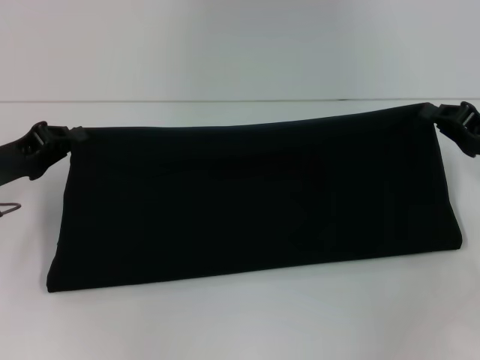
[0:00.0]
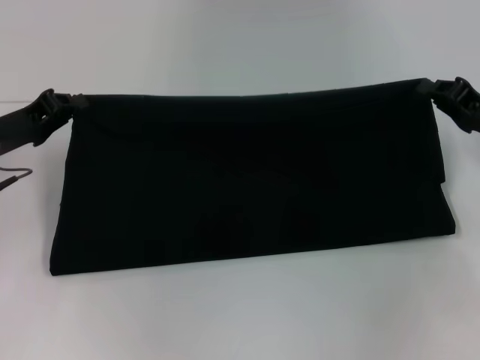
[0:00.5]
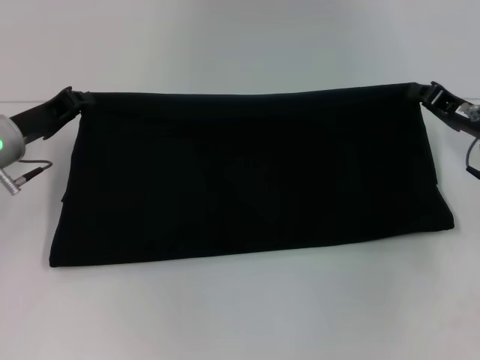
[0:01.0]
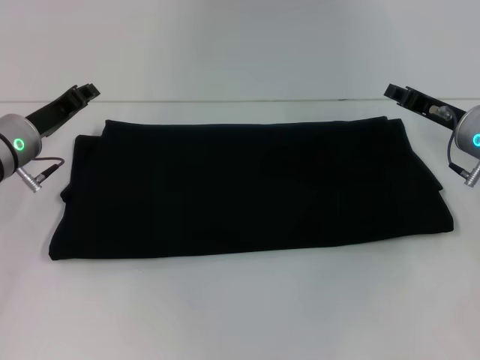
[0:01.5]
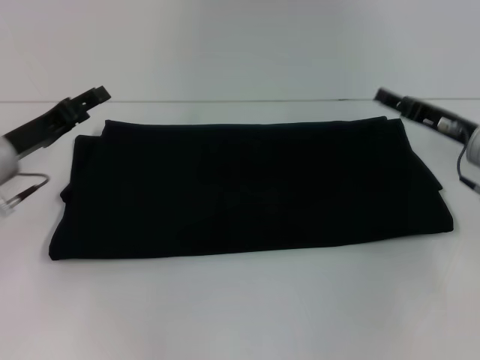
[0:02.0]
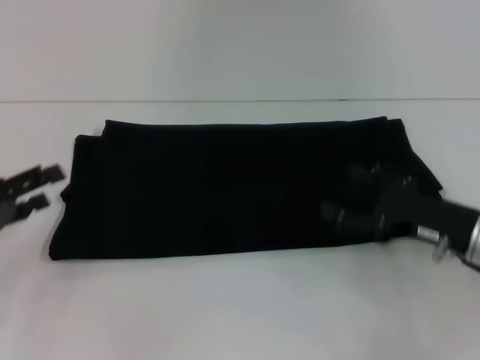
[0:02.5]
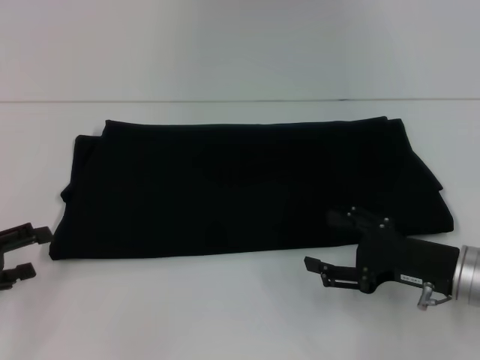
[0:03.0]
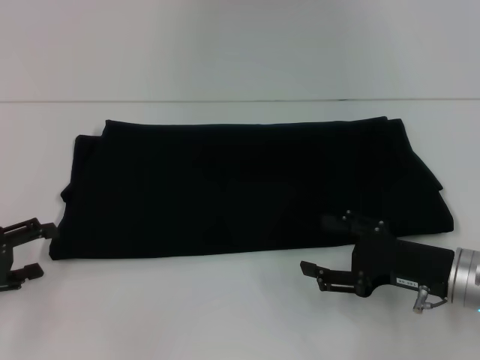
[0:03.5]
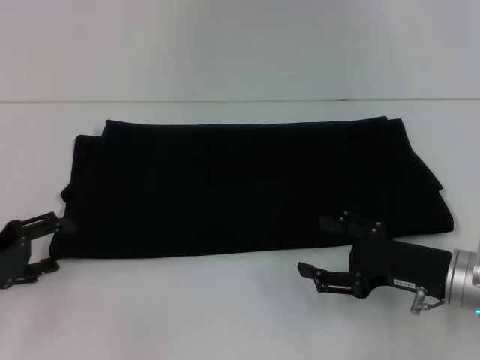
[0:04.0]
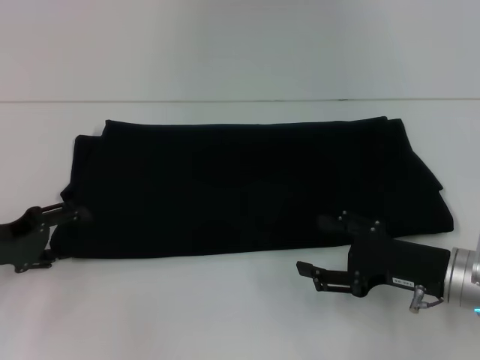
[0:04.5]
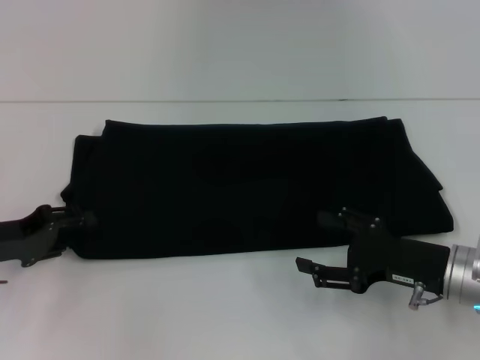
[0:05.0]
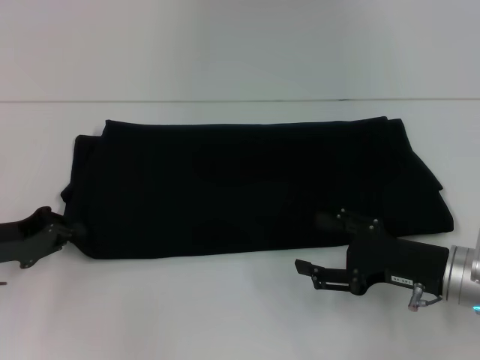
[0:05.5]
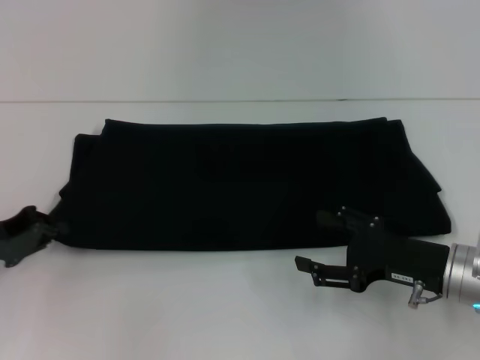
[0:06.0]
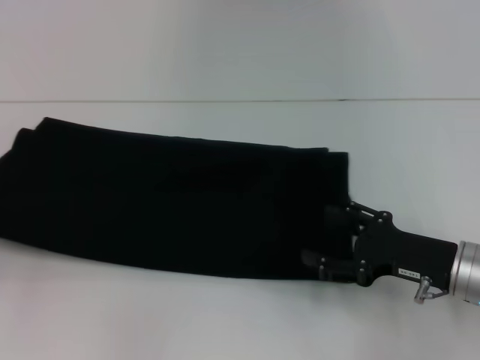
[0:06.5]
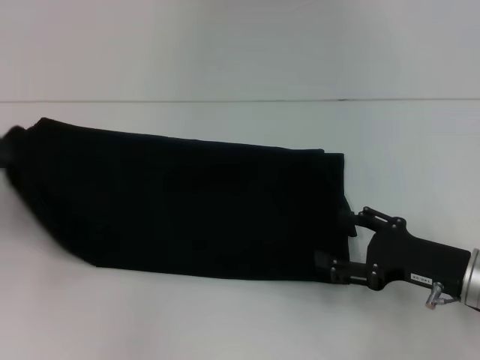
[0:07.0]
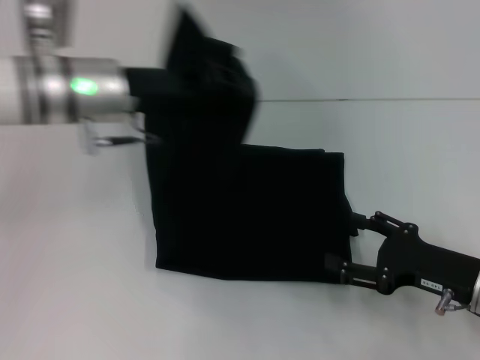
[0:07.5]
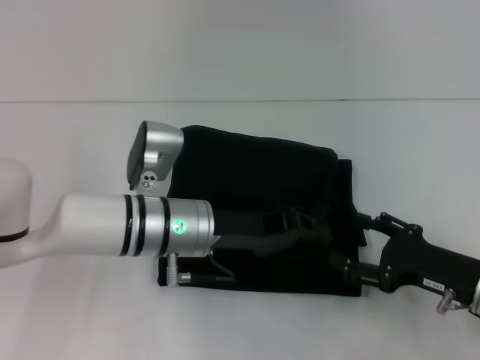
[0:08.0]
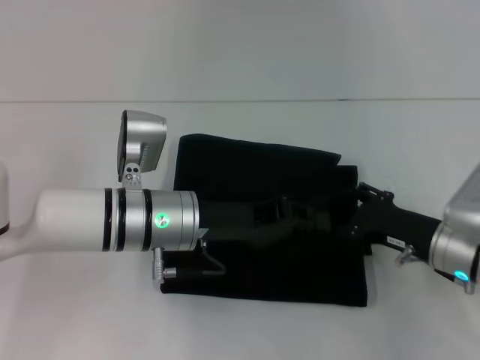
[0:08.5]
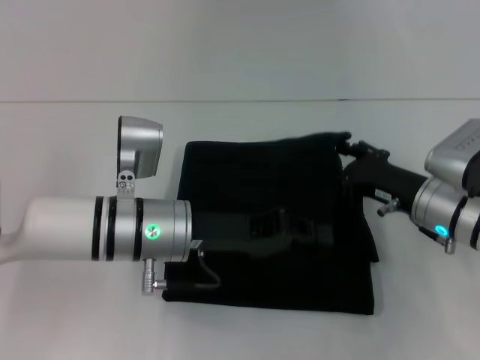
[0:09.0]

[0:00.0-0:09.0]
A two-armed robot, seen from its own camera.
0:00.0 to 0:02.0: The left gripper opens up; the right gripper changes place by approximately 5 cm, and opens up.
0:02.0 to 0:04.5: The right gripper heads backward, covering approximately 10 cm, while the left gripper heads backward, covering about 5 cm.
0:04.5 to 0:07.0: The left gripper goes some 10 cm upward and to the left, and closes.
0:07.0 to 0:09.0: The left gripper is displaced to the right by roughly 30 cm. Meanwhile the right gripper travels forward by about 5 cm.

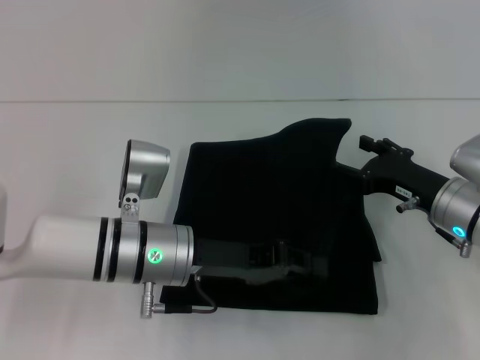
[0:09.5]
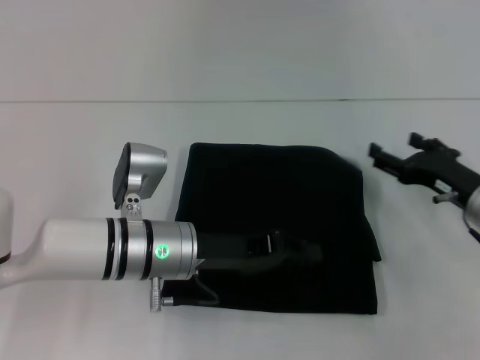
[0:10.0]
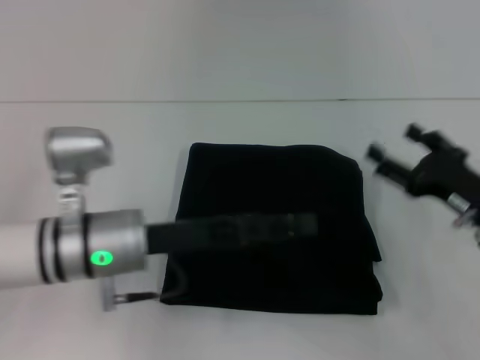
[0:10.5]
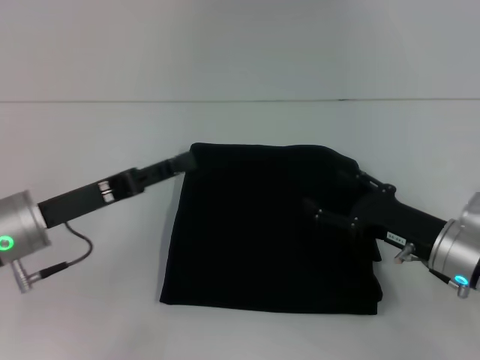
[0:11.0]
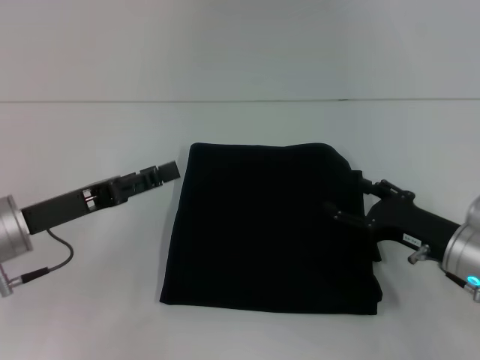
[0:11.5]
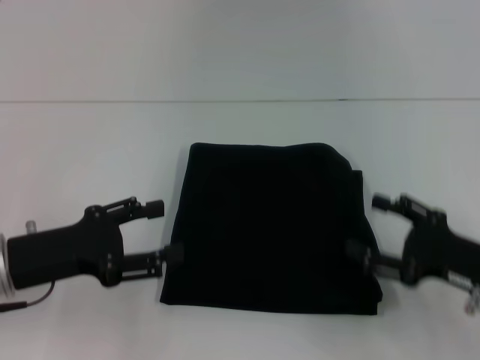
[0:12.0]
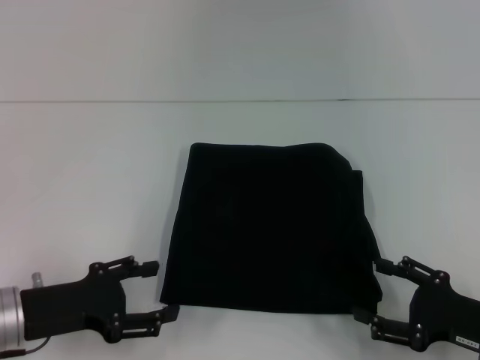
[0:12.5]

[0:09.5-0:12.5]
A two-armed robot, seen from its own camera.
0:09.5 to 0:11.0: The left gripper heads to the left, covering some 15 cm, and opens.
0:11.0 to 0:12.5: The left gripper travels backward by approximately 5 cm. Meanwhile the right gripper is displaced backward and to the right by about 10 cm.

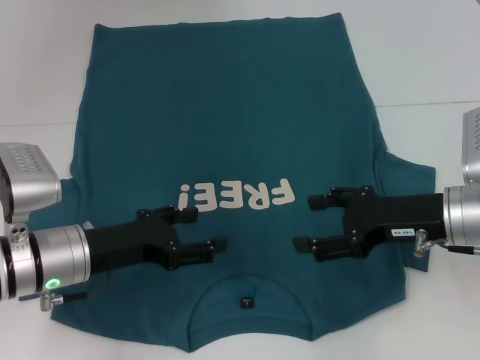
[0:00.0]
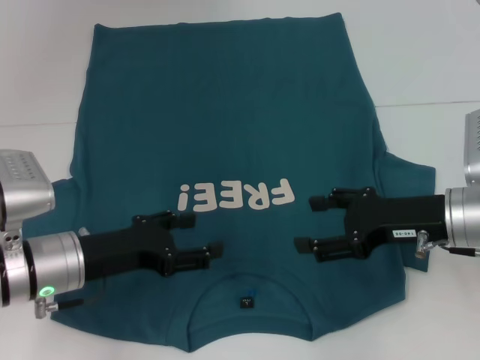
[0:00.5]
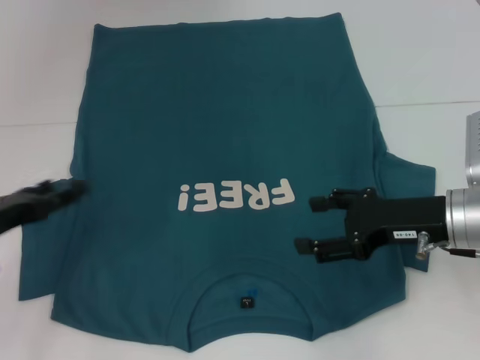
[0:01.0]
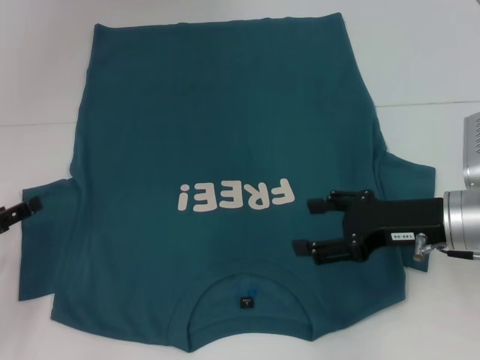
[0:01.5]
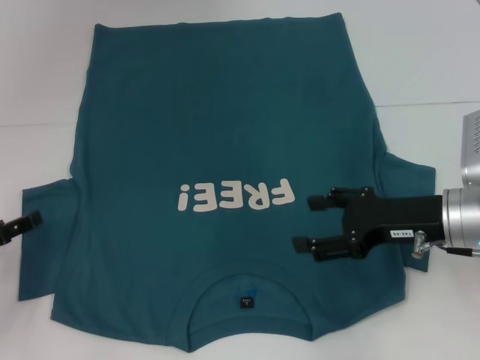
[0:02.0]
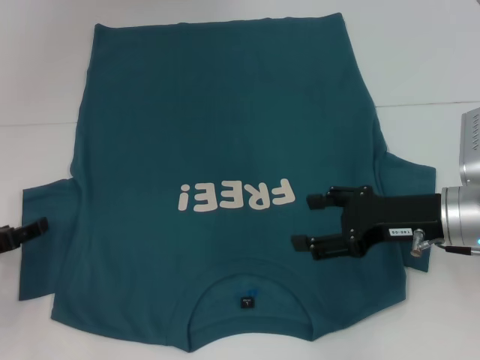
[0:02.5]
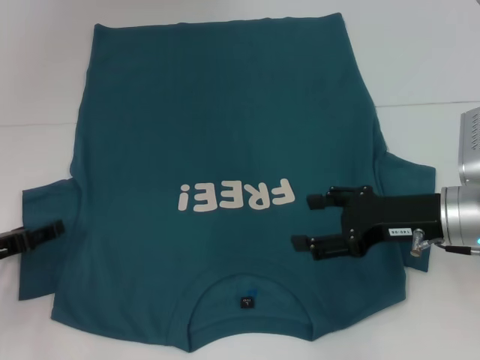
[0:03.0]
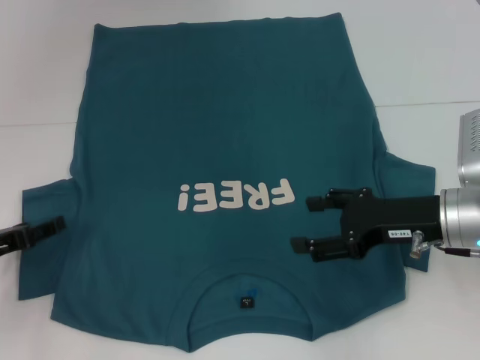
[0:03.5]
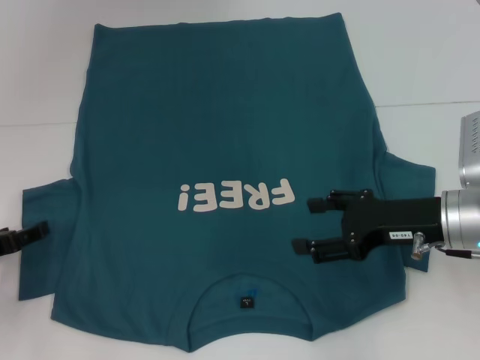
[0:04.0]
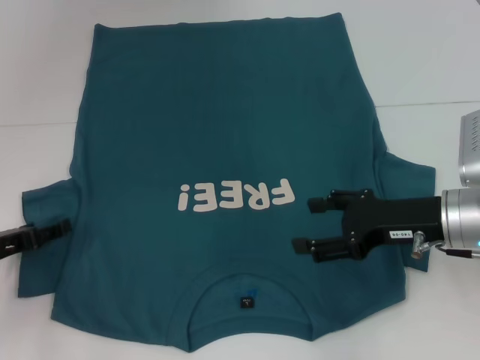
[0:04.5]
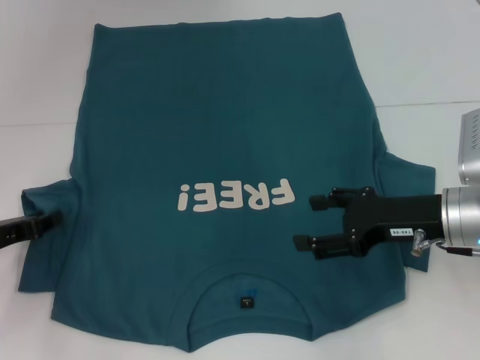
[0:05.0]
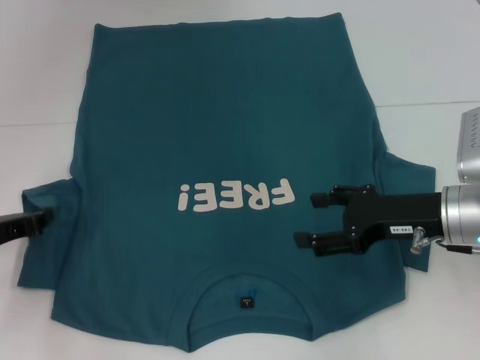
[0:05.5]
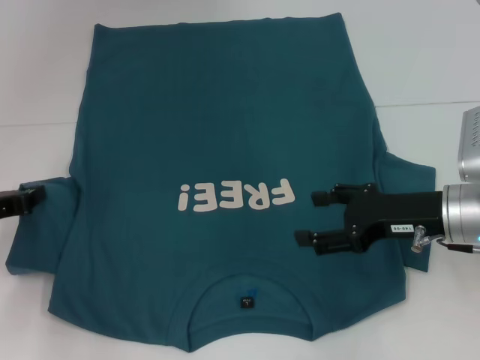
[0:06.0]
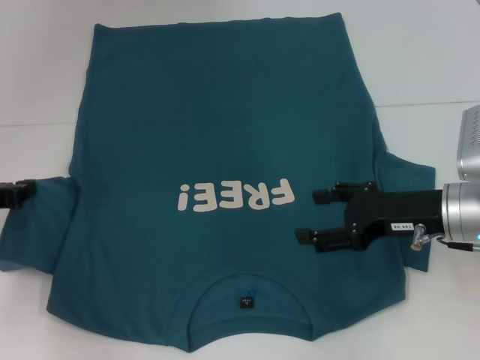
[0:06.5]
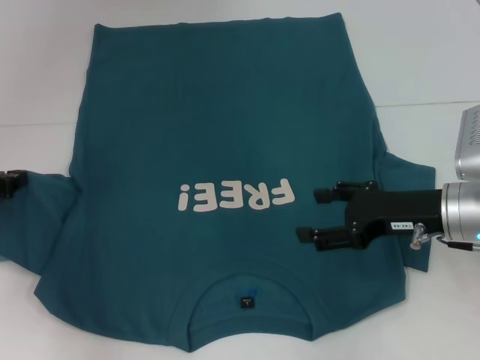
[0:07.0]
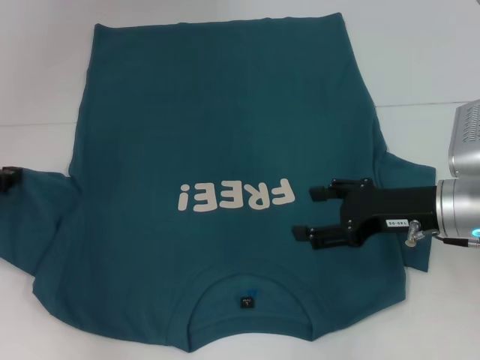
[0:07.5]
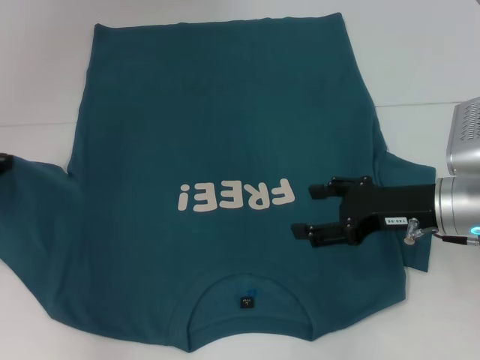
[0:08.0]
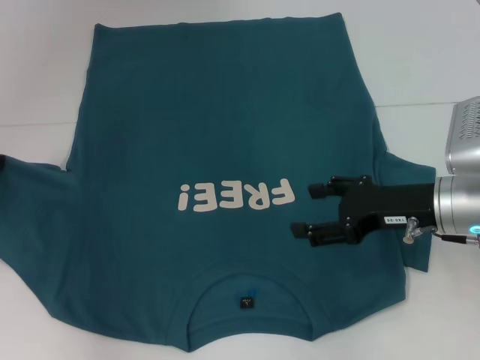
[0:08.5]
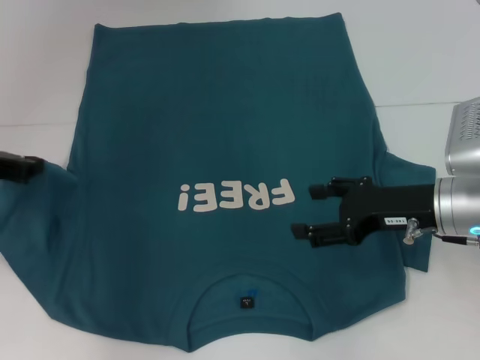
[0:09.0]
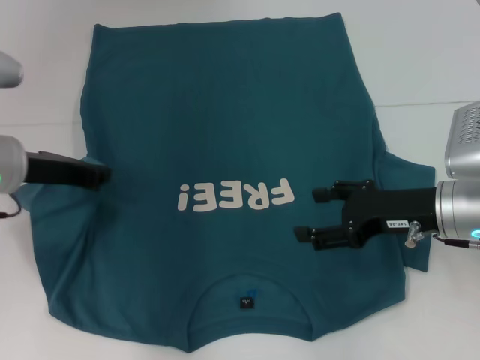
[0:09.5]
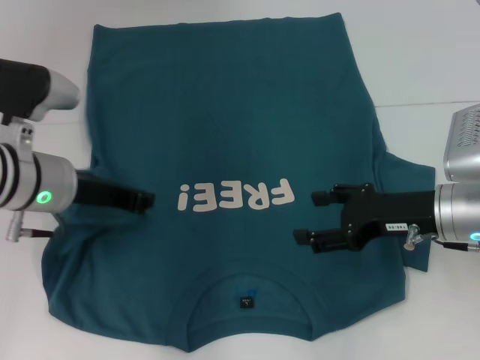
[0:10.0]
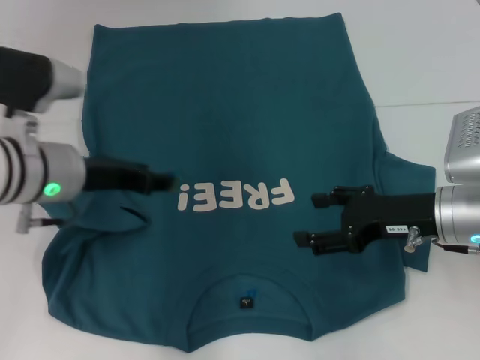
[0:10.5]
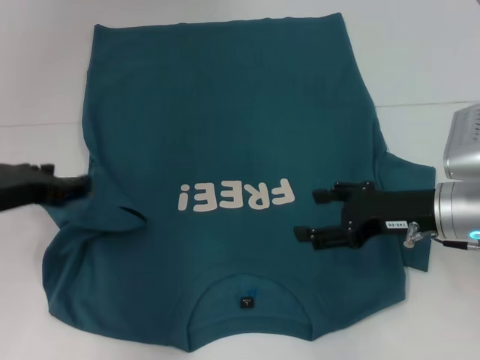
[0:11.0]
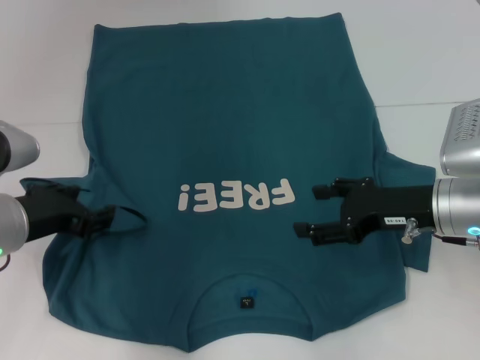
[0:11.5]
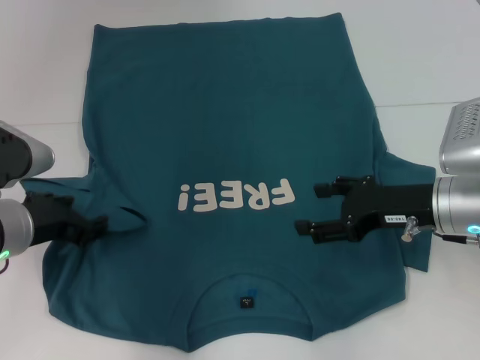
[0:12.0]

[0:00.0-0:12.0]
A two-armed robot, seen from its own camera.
Step, 0:00.0 to 0:10.5: Fold the bottom left sleeve with your left hand.
0:00.0 to 0:02.0: The left gripper heads to the left, covering roughly 15 cm.
0:02.0 to 0:04.0: The grippers make only small movements.
0:04.0 to 0:06.0: The left gripper closes its fingers.
0:06.0 to 0:08.0: The left gripper is displaced upward by about 5 cm.
0:08.0 to 0:10.0: The left gripper heads to the right, covering some 15 cm.
0:10.0 to 0:12.0: The left gripper is displaced backward by roughly 5 cm, and opens its fingers.

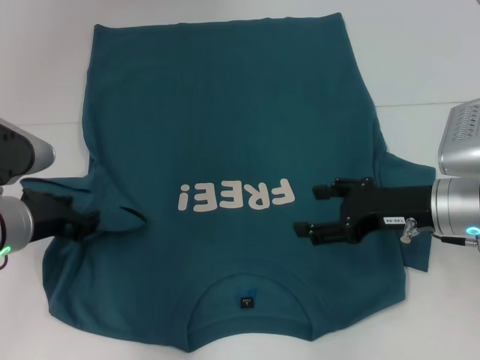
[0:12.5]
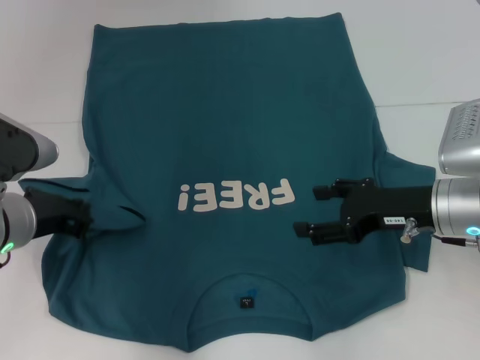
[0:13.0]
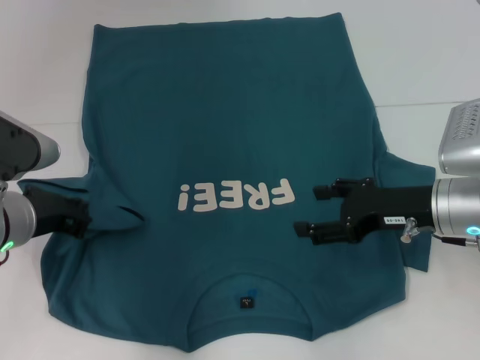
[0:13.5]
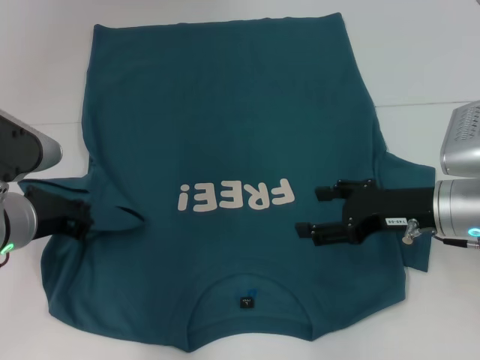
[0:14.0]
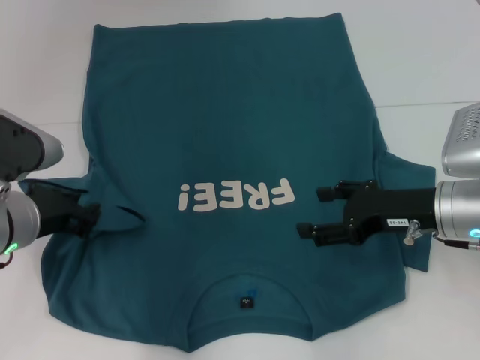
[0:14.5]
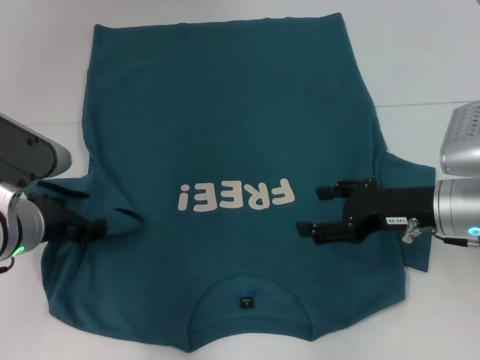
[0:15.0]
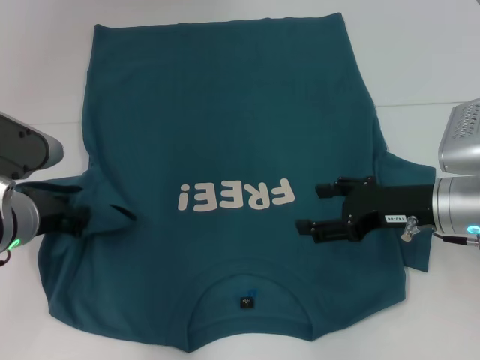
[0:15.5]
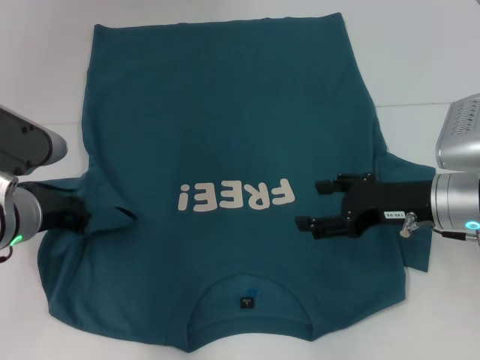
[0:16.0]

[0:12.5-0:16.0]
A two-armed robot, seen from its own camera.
0:12.5 to 0:14.5: The left gripper closes up.
0:14.5 to 0:16.0: The left gripper opens and closes again.
